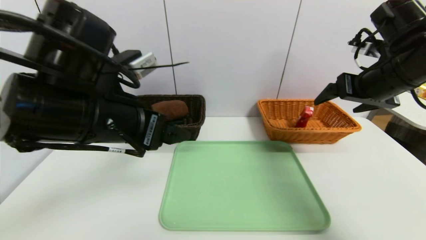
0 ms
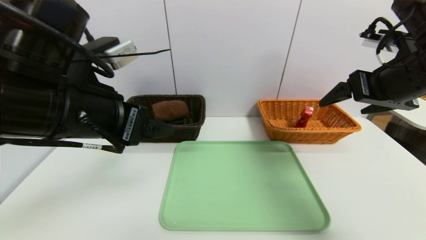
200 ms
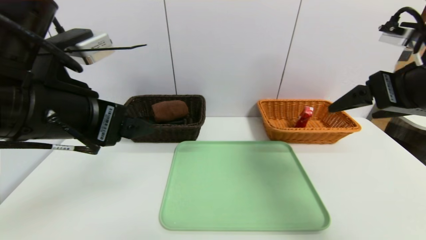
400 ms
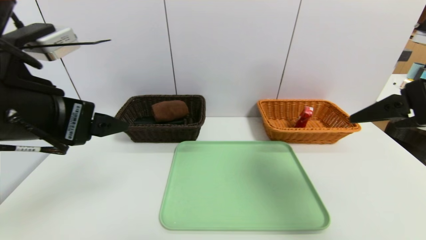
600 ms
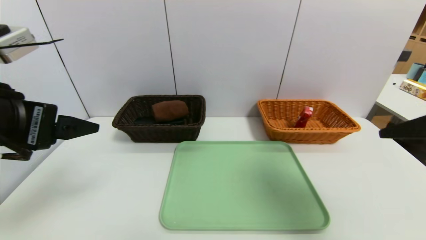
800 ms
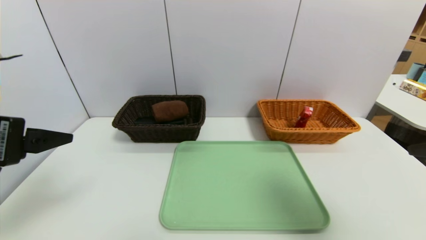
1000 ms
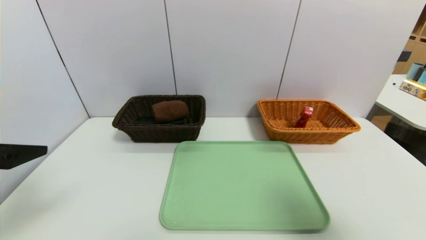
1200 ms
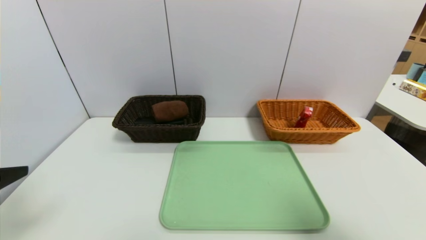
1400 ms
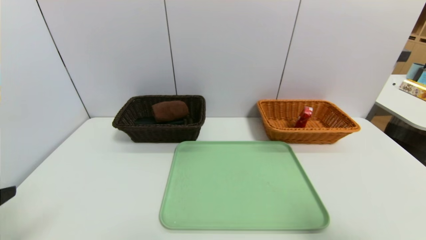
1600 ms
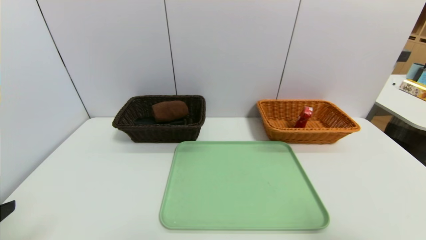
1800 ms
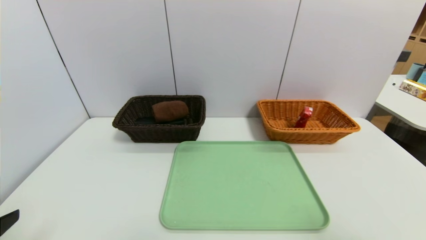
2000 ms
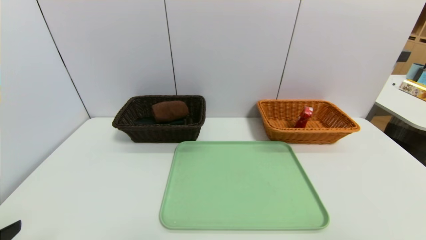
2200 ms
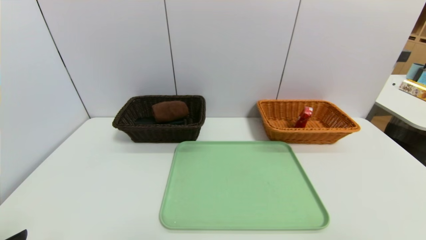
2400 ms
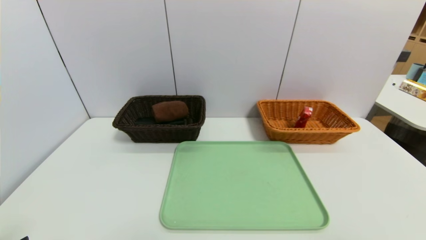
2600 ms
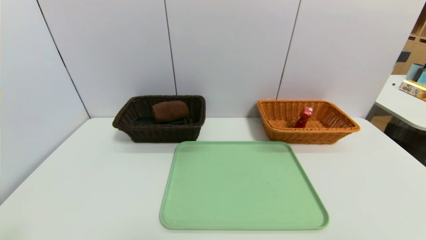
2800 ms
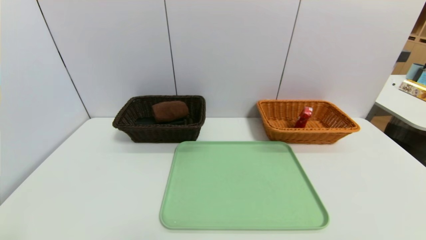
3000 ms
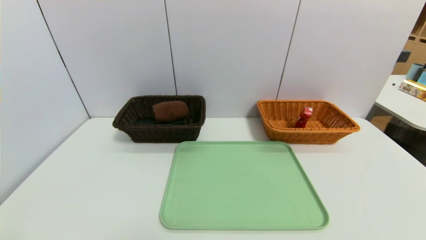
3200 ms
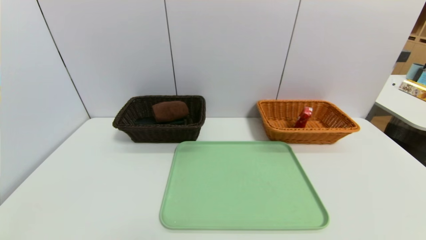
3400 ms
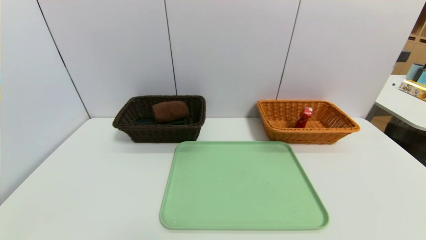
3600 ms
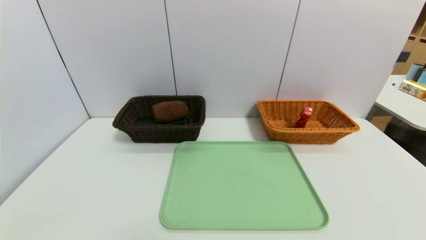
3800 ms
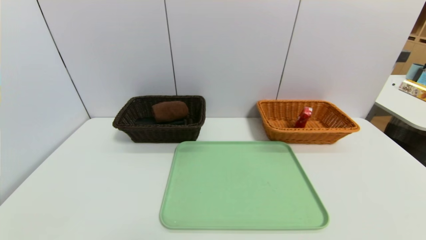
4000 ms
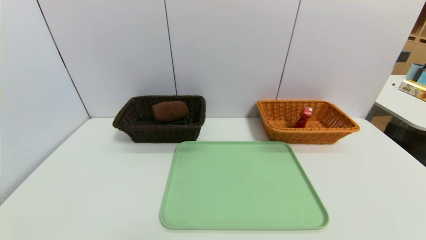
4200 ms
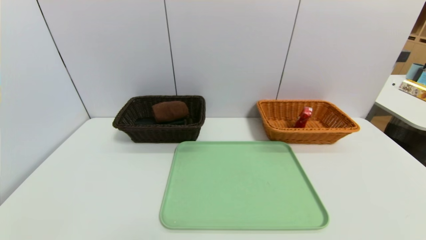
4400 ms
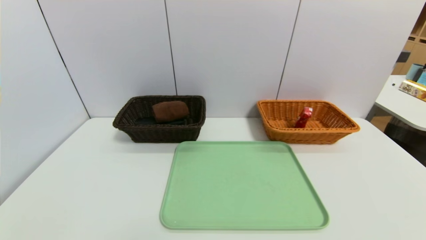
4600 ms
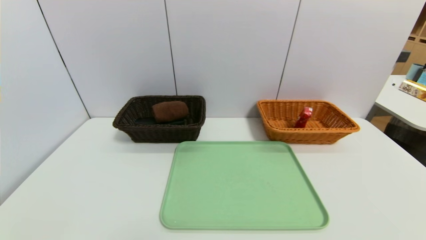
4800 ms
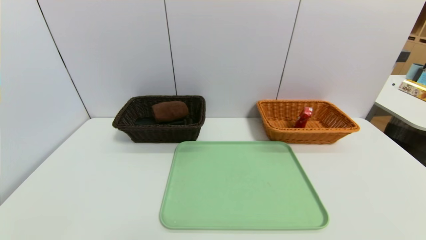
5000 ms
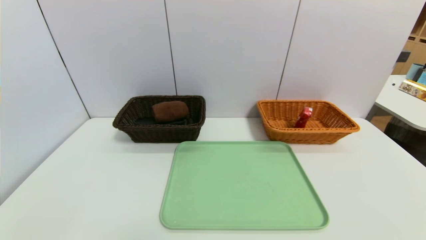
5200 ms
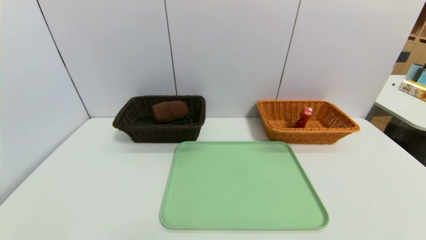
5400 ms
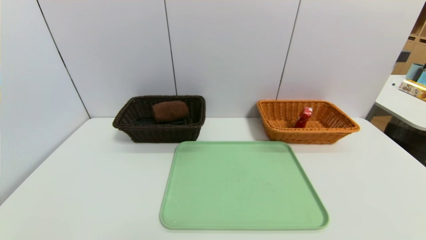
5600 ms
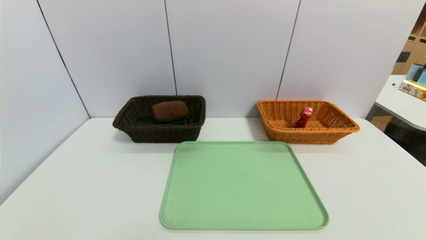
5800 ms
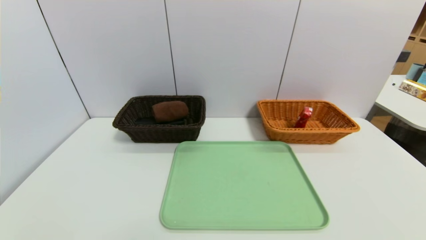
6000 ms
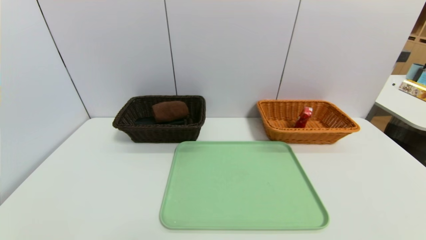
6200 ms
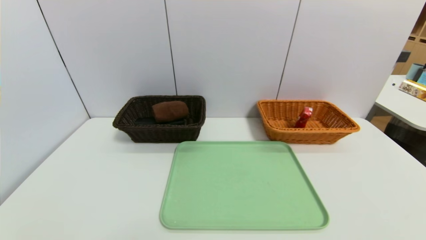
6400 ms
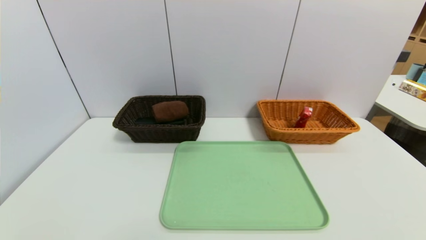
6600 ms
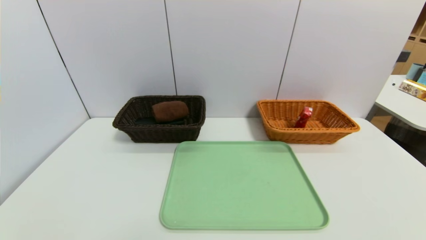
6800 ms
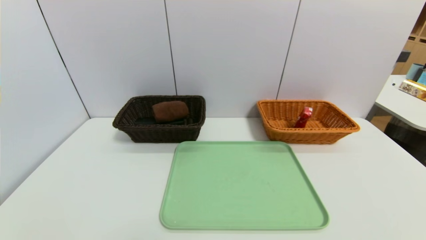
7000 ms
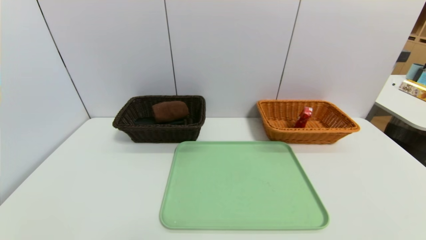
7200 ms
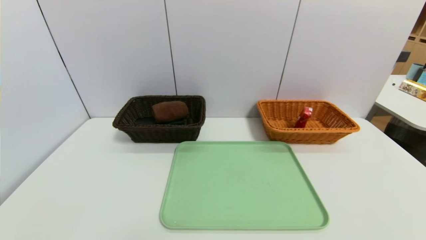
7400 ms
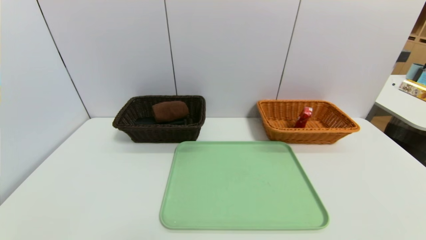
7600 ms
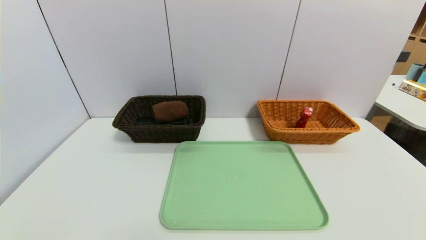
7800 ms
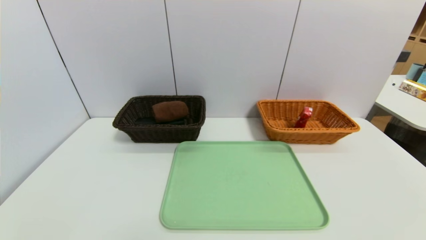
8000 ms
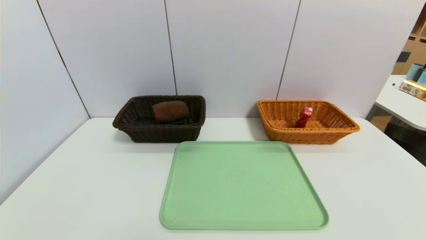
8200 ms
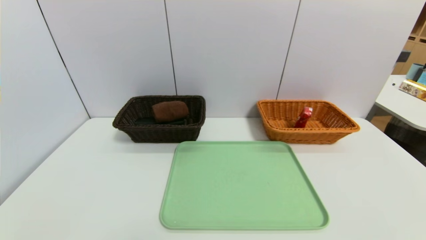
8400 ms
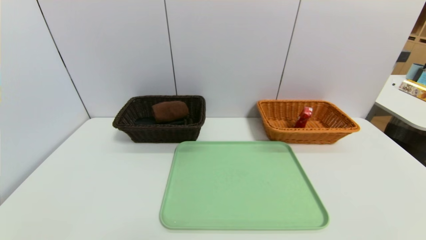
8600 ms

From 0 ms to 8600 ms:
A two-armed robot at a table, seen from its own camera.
Task of the whole recording: place the food in the right basket with the right gripper, and place the non food items in the left basket with the left gripper.
From 0 ms to 1400 ms: The left gripper heads to the left and backward, covering some 20 cm. The right gripper goes about 25 cm backward.
From 1400 ms to 2800 ms: The right gripper moves backward, approximately 5 cm. Meanwhile the left gripper is displaced downward and backward by roughly 10 cm.
From 7200 ms to 8600 ms: Both grippers stay put.

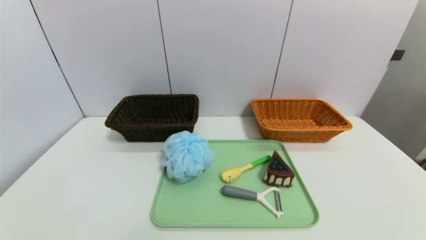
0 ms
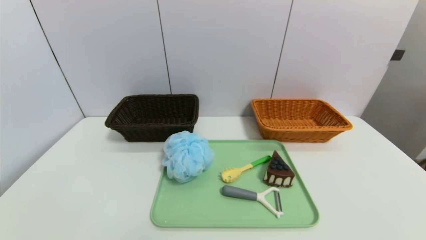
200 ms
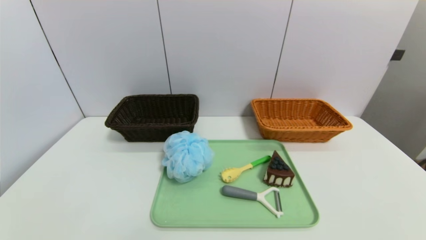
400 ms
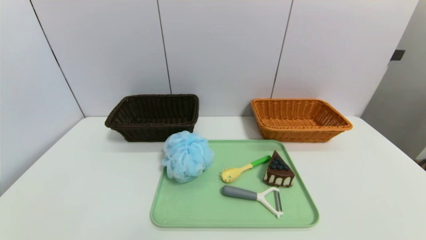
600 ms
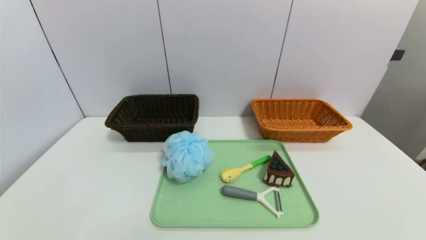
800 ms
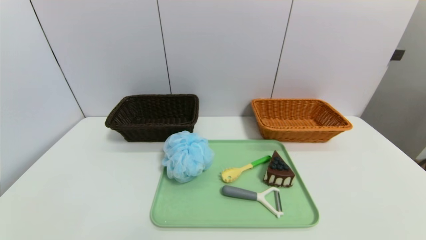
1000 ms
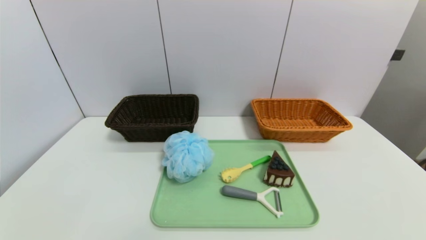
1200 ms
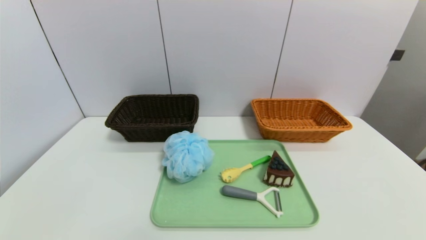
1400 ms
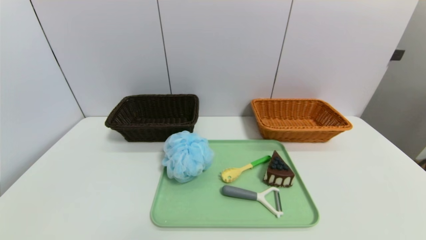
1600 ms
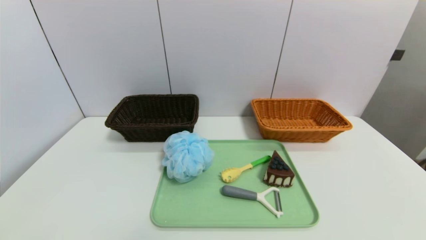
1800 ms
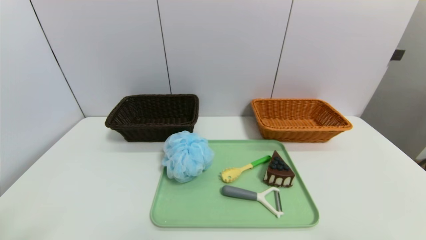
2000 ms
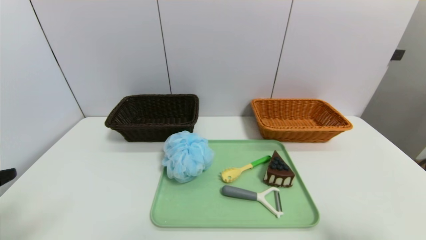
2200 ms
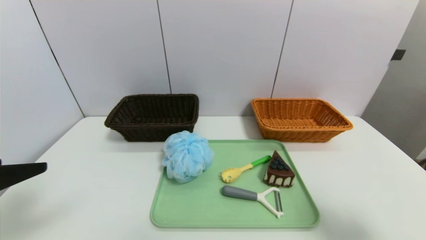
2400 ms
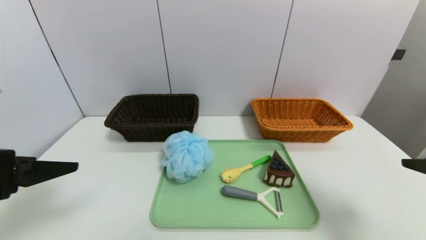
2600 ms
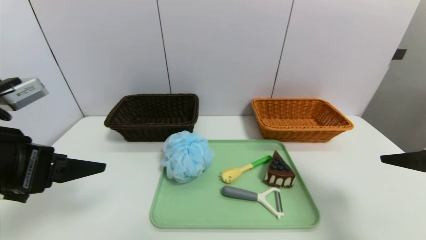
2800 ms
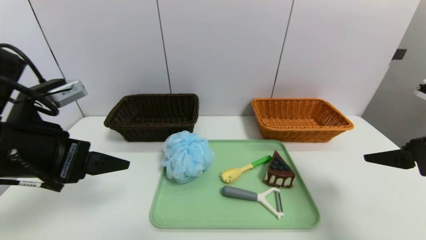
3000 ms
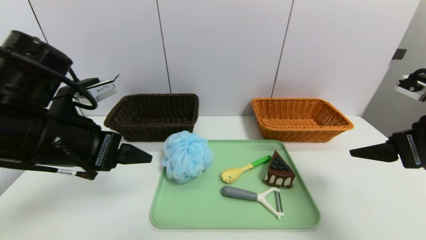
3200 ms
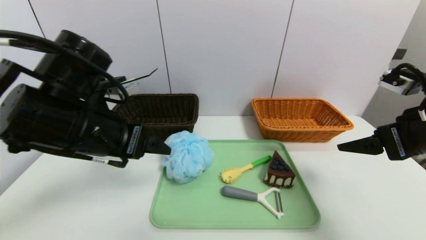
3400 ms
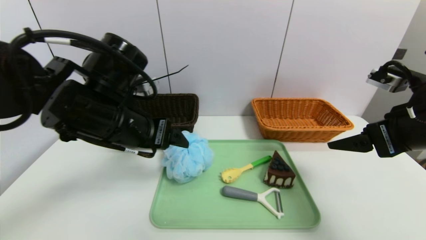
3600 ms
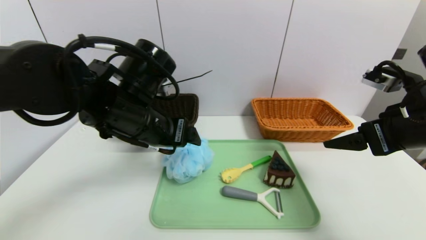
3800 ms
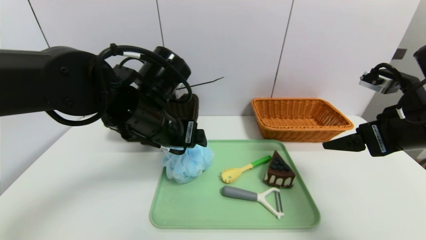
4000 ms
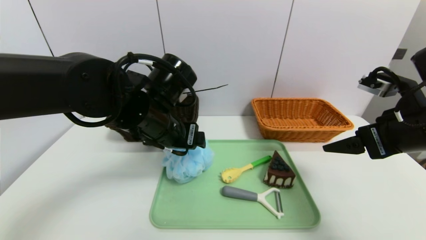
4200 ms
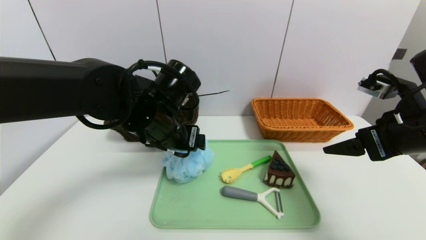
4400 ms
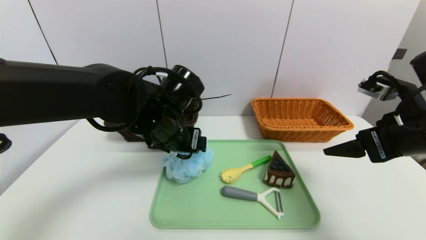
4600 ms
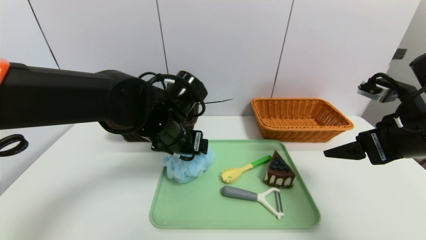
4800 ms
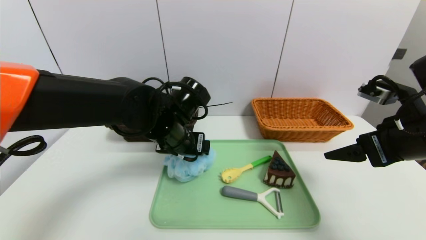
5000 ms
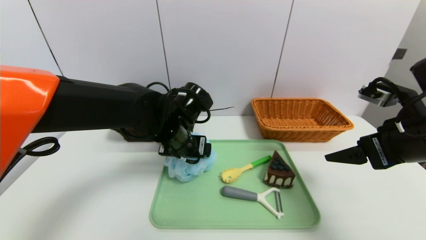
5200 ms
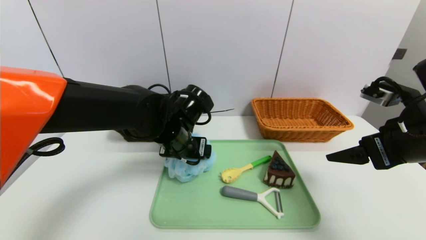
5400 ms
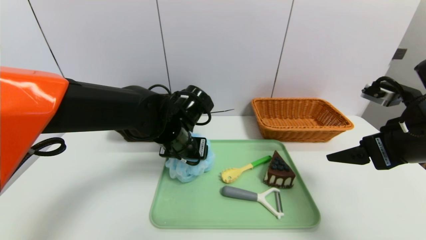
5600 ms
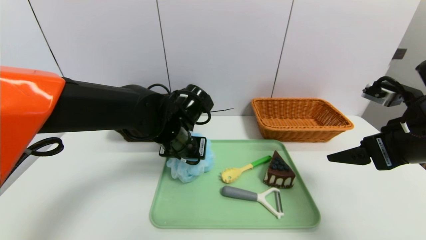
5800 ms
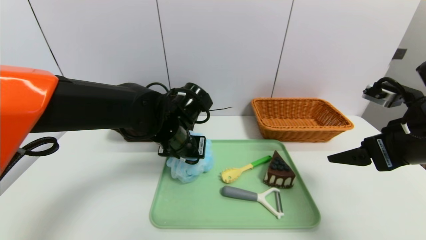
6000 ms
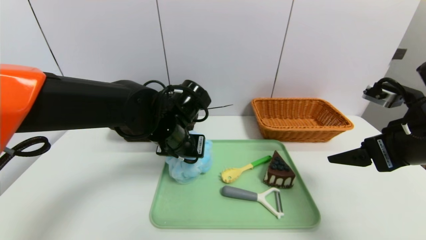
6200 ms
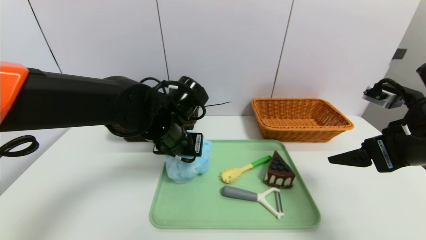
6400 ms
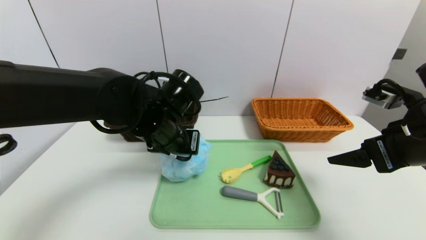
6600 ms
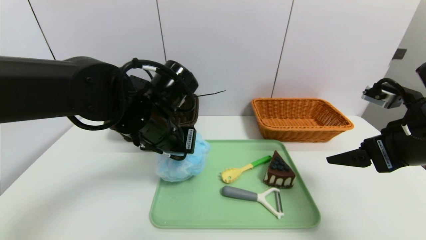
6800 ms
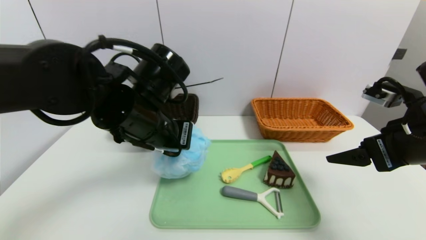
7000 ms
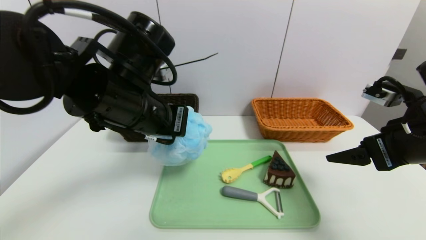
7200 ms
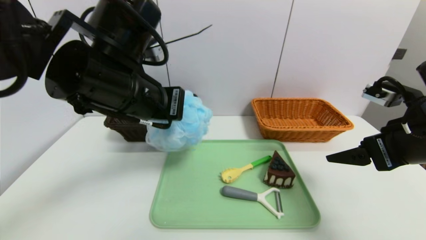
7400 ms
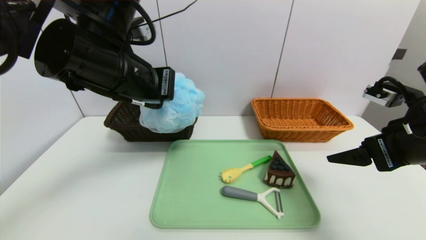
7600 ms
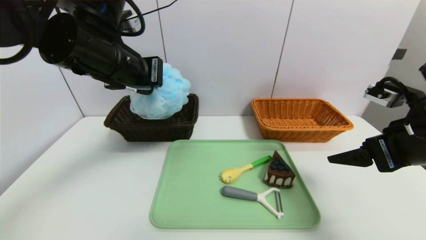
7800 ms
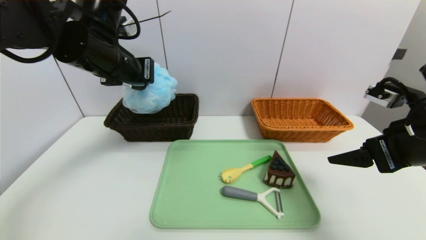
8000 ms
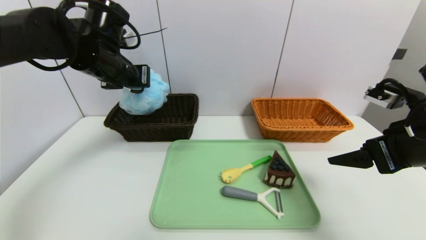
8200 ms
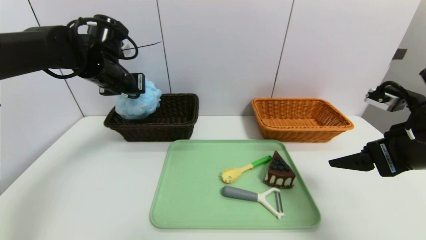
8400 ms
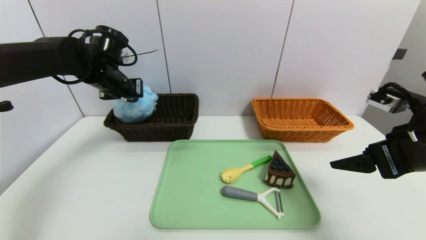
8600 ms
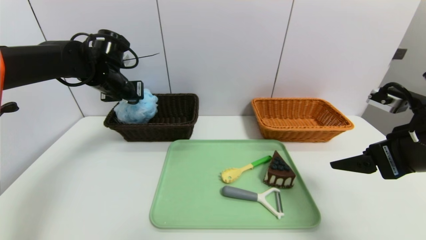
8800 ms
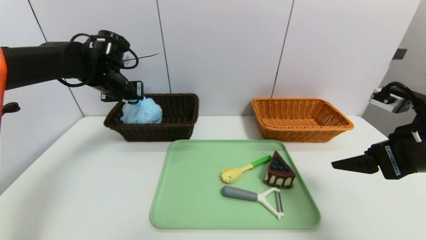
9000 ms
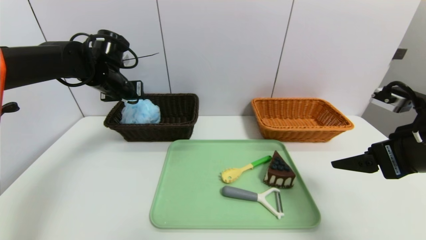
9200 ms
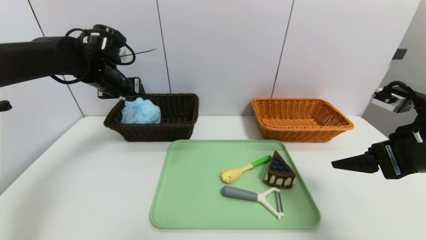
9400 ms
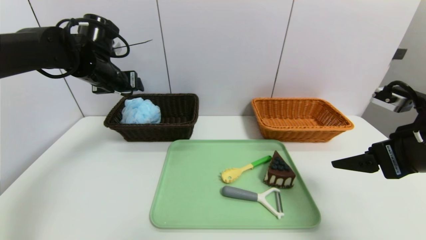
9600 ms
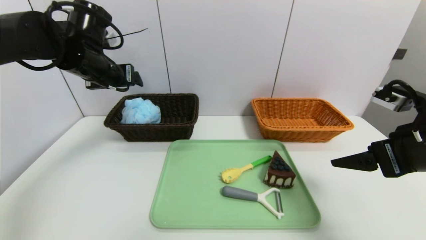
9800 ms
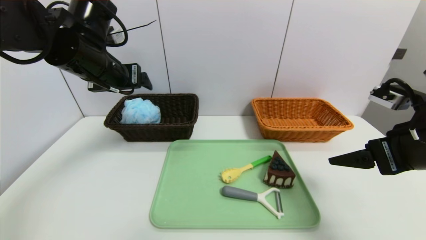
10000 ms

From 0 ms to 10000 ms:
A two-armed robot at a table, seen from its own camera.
Task of the whole recording: place the food in the right basket with the right gripper, and place the non food items in the left basket with the left gripper.
Step, from 0 ms to 9400 ms: Grasp the shower sphere and put it in the left basket.
From 1400 ms to 2800 ms: The two grippers go approximately 25 cm forward and upward.
From 2800 ms to 4200 ms: The left gripper heads to the right and forward, covering roughly 20 cm, while the right gripper heads forward, covering roughly 5 cm.
From 4200 ms to 5800 ms: The left gripper heads downward, covering some 5 cm, and closes its fingers.
From 5800 ms to 7200 ms: The left gripper shifts approximately 15 cm upward and backward, and closes up.
From 7200 ms to 8600 ms: The left gripper goes roughly 20 cm forward and to the left.
From 8600 ms to 10000 ms: The left gripper goes about 10 cm backward and upward, and opens.
